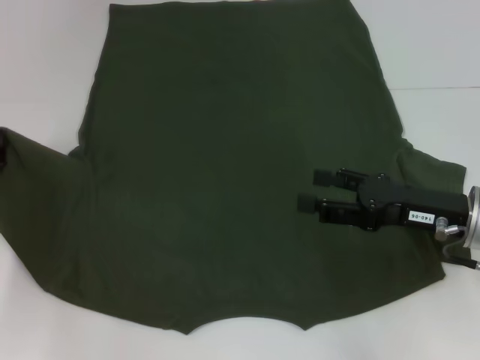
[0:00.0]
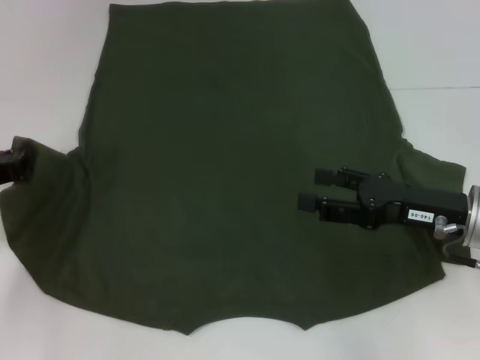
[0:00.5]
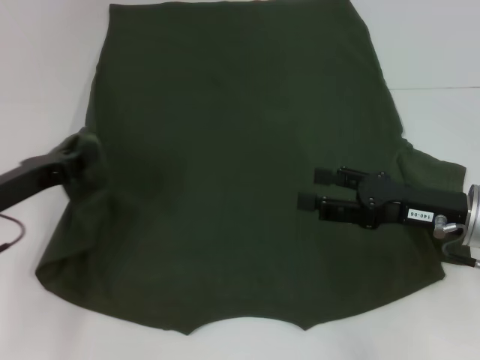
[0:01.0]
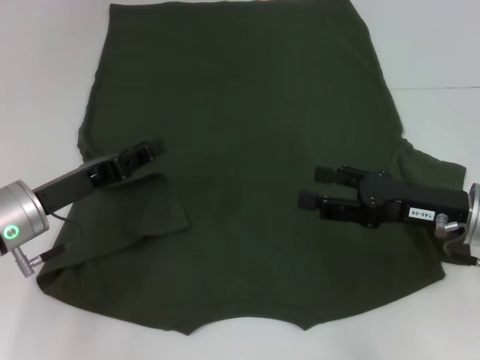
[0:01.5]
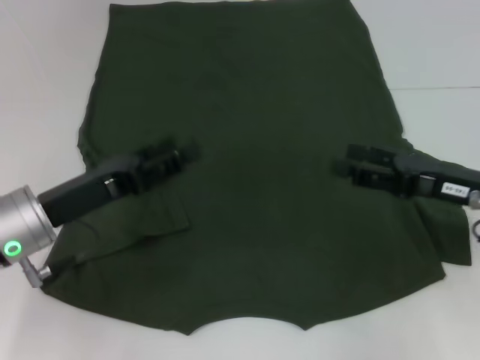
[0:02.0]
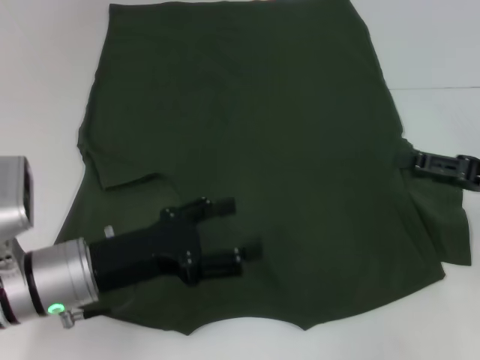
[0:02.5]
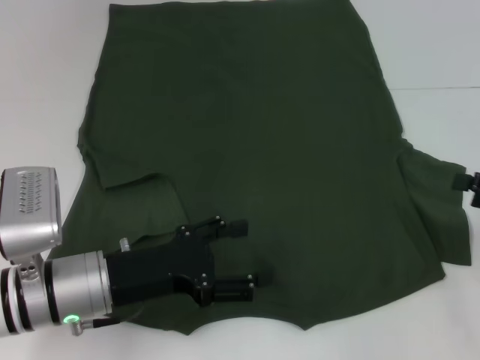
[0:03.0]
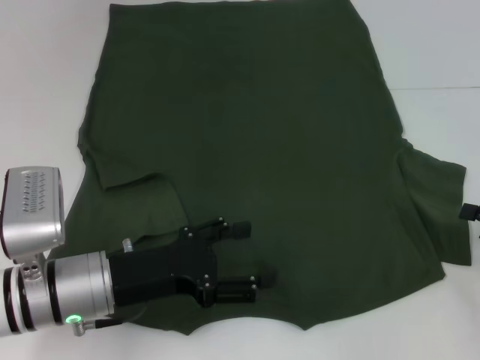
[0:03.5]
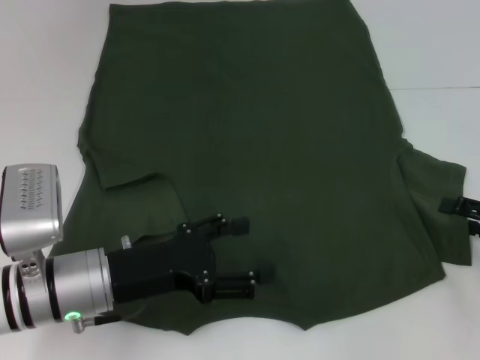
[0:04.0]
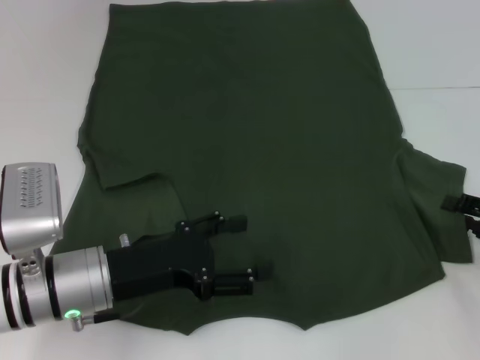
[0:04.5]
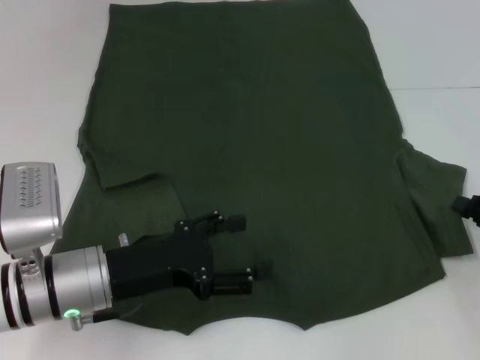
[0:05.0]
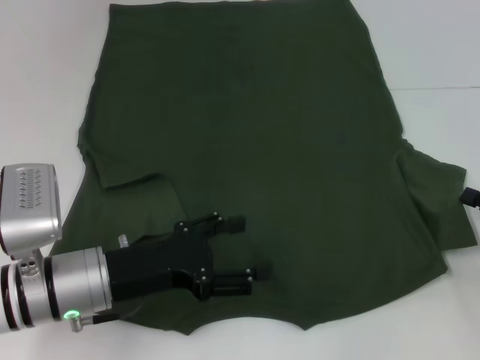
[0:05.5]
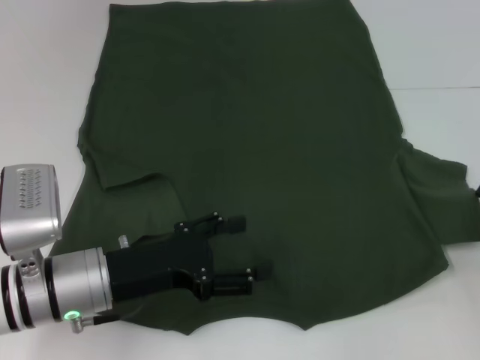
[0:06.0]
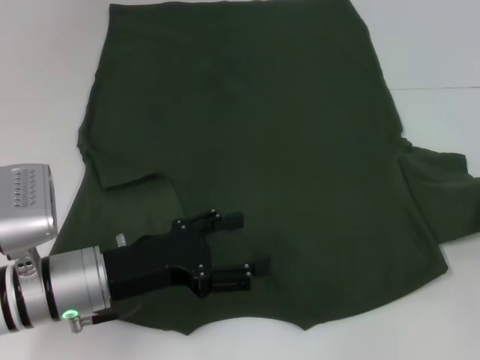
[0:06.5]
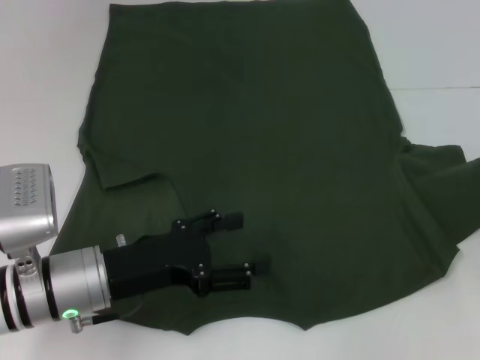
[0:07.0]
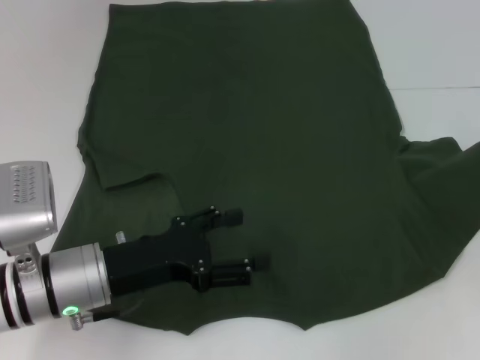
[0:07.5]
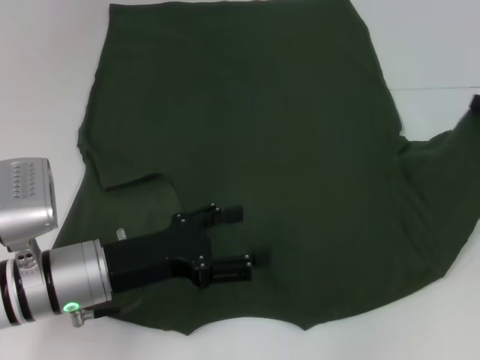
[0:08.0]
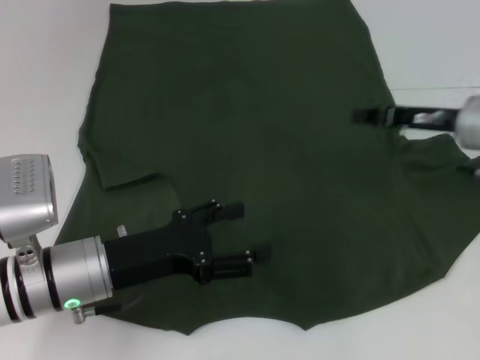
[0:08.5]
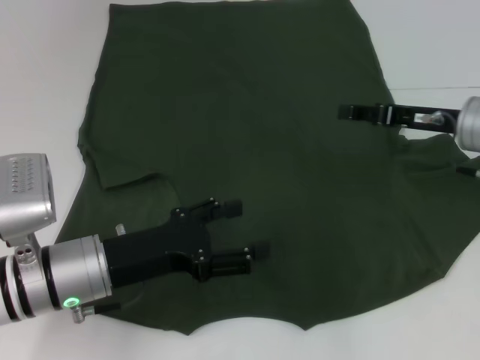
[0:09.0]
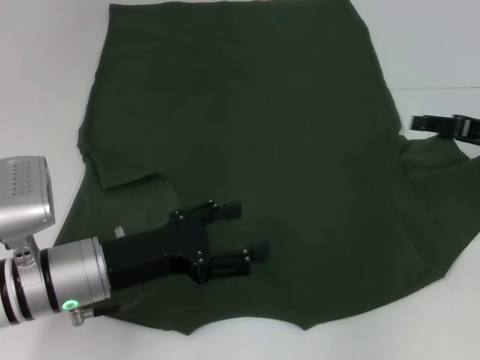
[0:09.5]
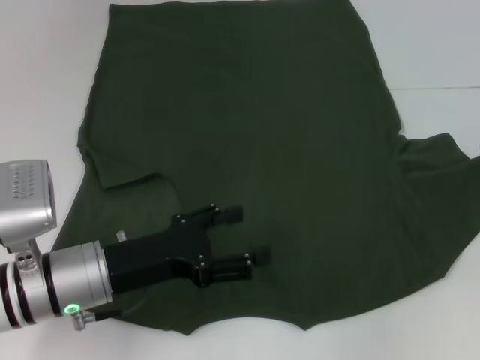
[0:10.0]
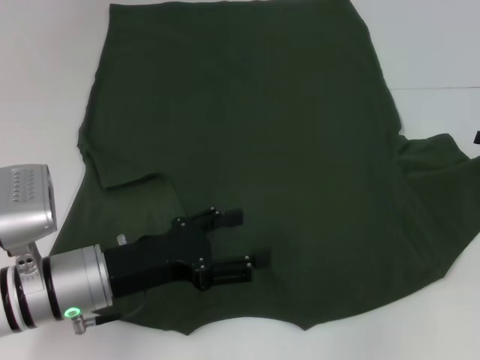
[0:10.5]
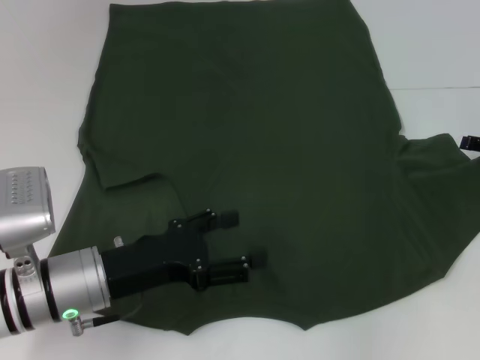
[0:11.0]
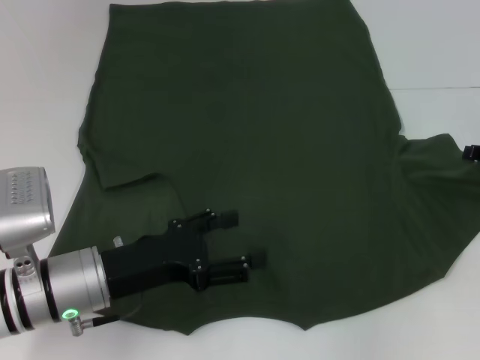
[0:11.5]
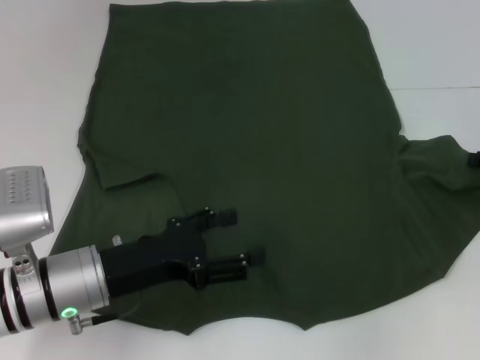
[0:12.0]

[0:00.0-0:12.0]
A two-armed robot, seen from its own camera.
0:00.0 to 0:02.0: The left gripper goes roughly 15 cm to the right and backward, and opens.
0:02.0 to 0:04.0: The left gripper moves about 5 cm, while the right gripper heads to the right, covering roughly 10 cm.
0:04.0 to 0:06.0: The right gripper closes its fingers.
0:06.0 to 0:08.0: The right gripper moves forward and upward, approximately 10 cm.
0:08.0 to 0:10.0: The right gripper moves about 10 cm to the left and comes back, and opens its fingers.

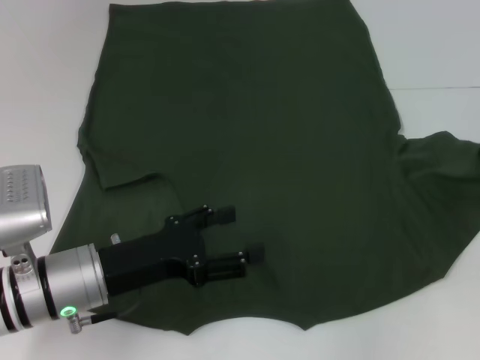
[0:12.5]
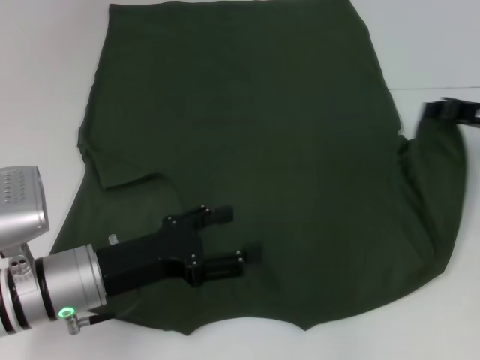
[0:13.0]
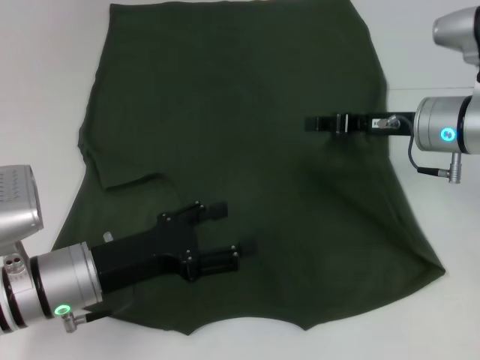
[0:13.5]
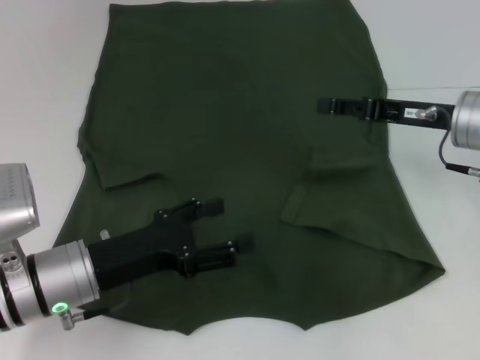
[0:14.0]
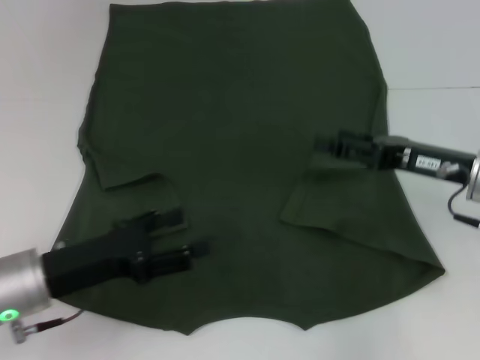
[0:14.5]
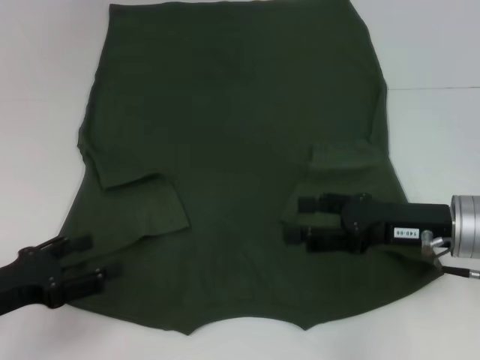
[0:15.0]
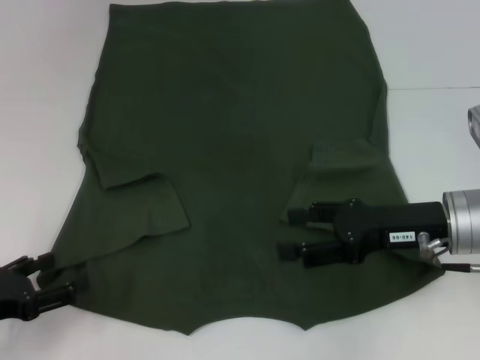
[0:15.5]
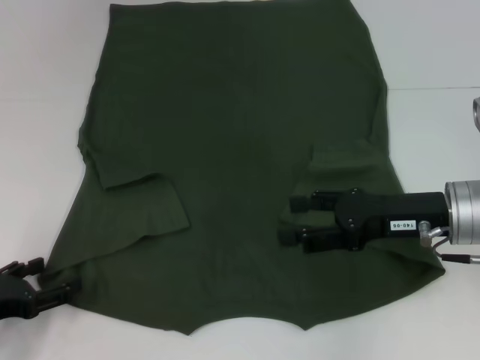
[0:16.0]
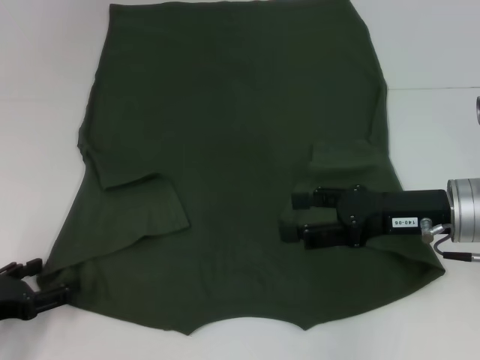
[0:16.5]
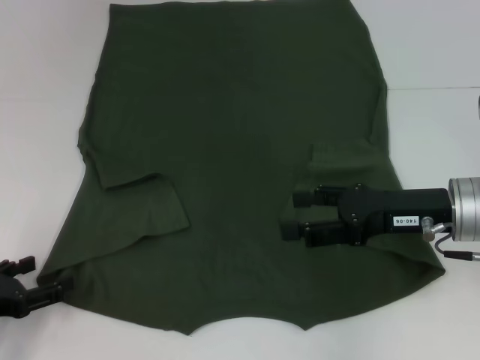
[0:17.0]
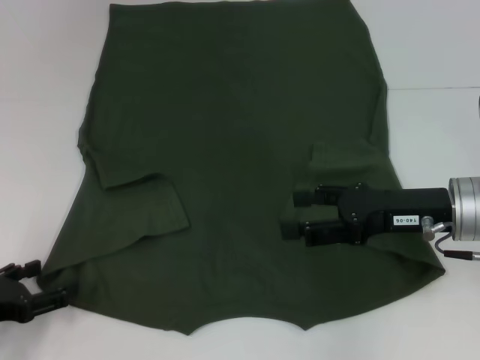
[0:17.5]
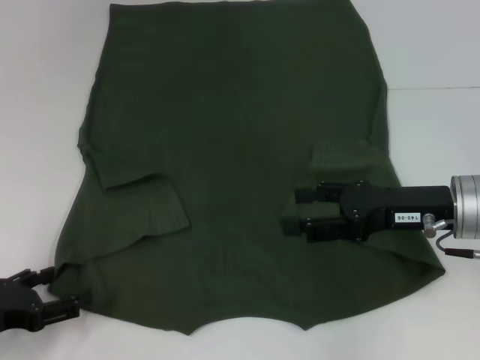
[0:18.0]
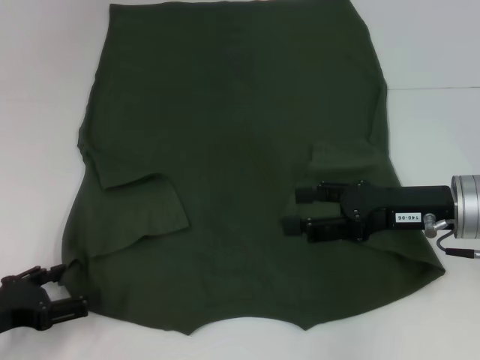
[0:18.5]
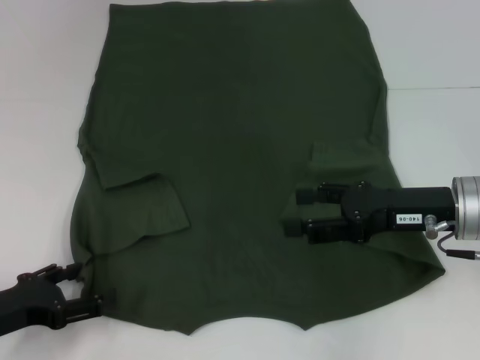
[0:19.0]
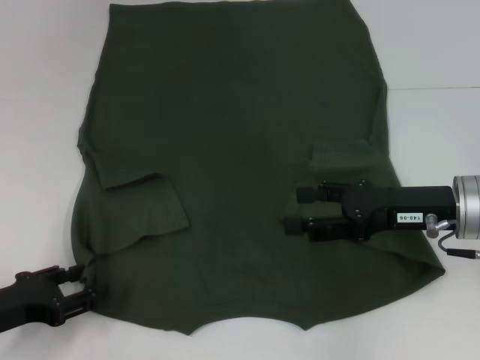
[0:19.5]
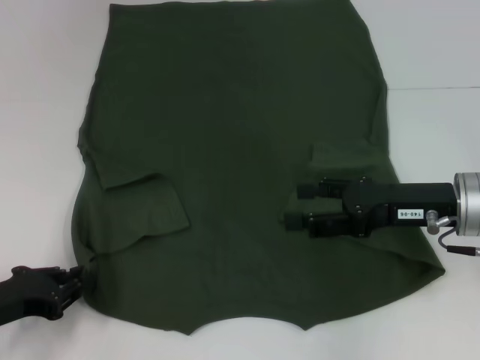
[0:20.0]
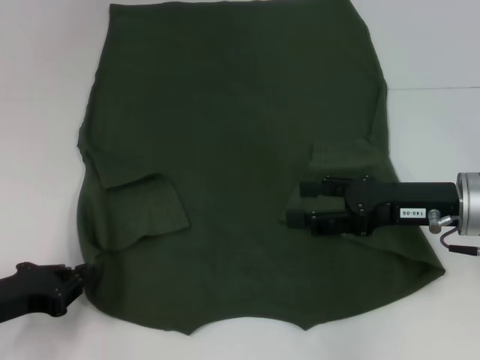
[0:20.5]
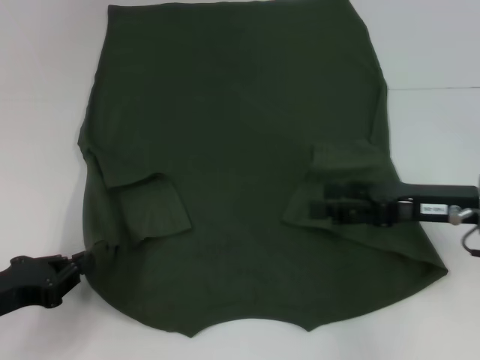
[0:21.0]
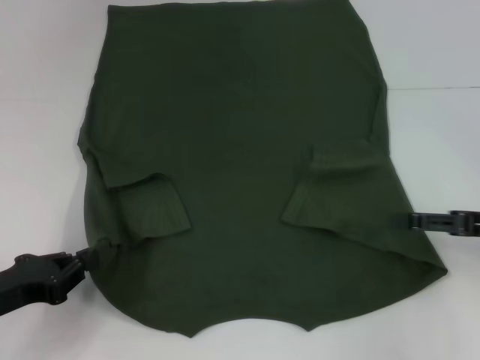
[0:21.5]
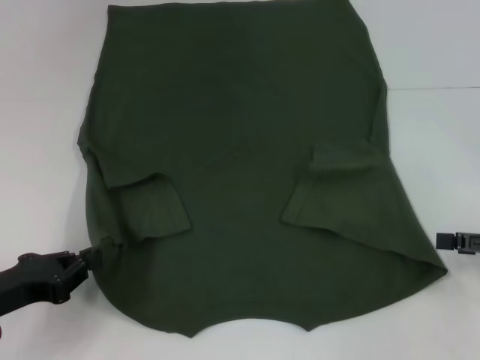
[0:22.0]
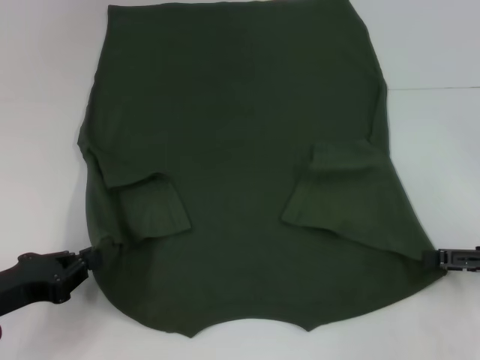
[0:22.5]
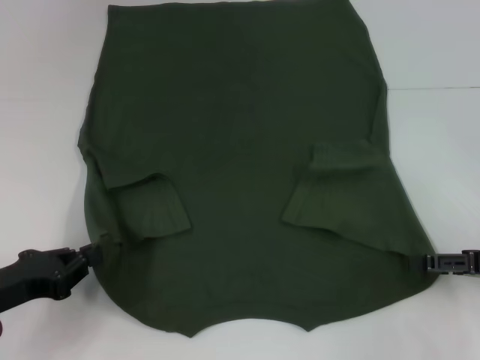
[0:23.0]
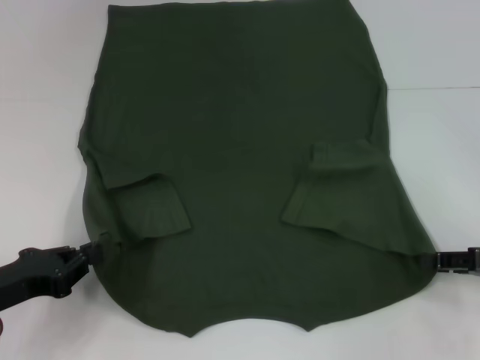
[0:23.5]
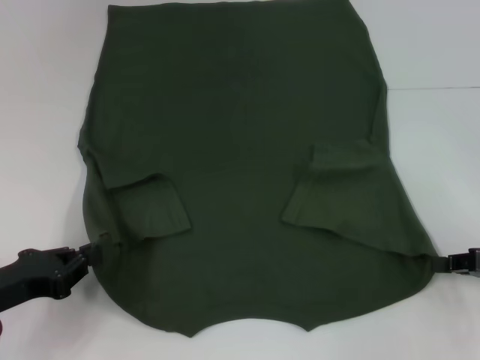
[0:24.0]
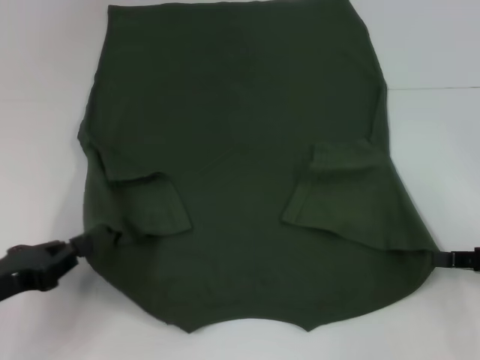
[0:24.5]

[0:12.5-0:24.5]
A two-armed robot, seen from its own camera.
Step, 0:14.0 to 0:20.0: Grab the bottom left corner with your left hand.
Step, 0:20.5 to 0:23.0: Grab the bottom right corner with your right hand.
0:12.5 to 0:14.5: The right gripper heads to the left, covering some 10 cm, and opens.
0:14.5 to 0:16.5: The left gripper travels to the left by about 10 cm.
0:16.5 to 0:18.5: The grippers stay close to where they were, moving slightly.
0:18.5 to 0:20.5: The left gripper closes its fingers.
0:20.5 to 0:22.5: The right gripper goes roughly 15 cm to the right.
0:22.5 to 0:24.5: The right gripper closes.

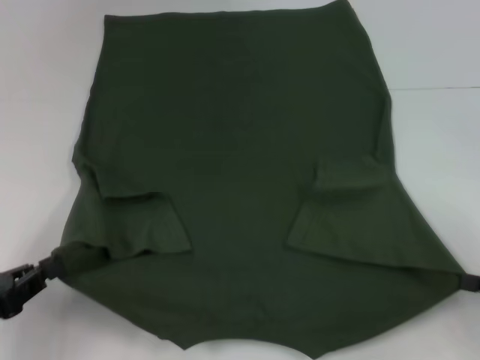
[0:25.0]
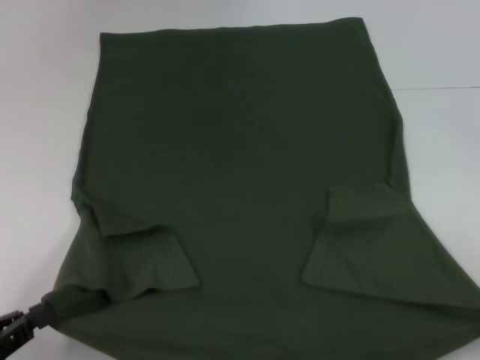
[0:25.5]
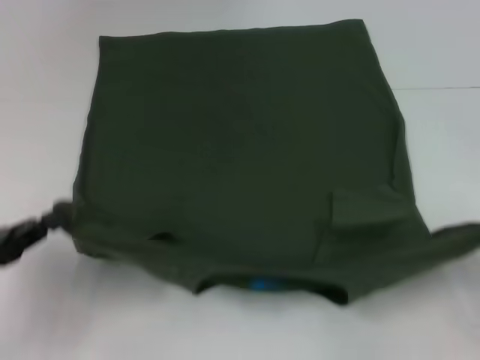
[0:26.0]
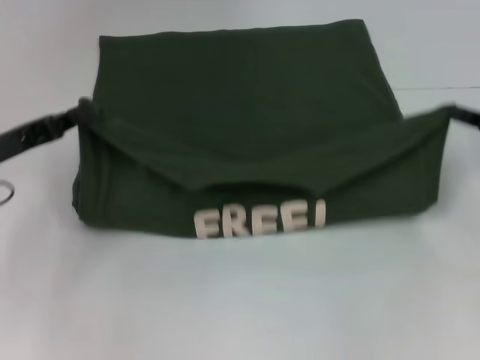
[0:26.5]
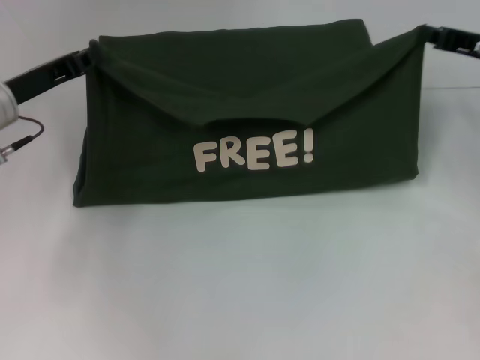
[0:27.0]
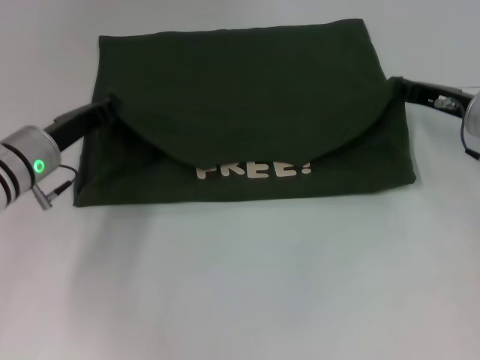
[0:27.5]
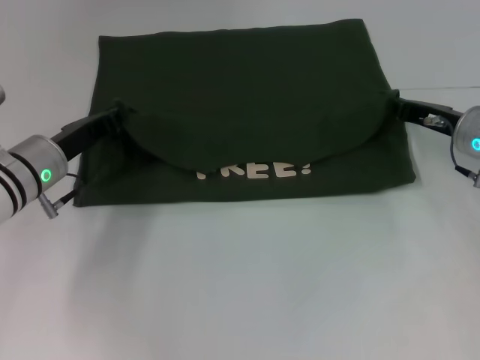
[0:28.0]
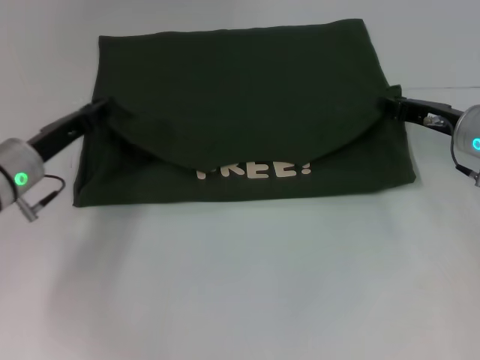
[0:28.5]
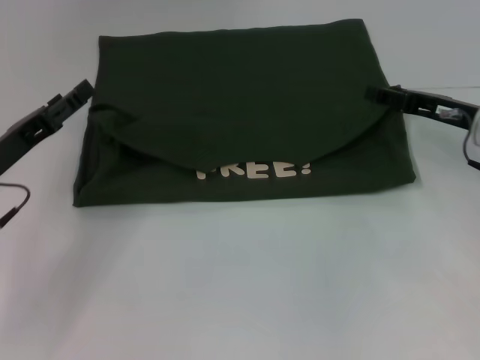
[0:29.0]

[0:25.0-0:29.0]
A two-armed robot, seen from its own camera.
Step, 0:25.0 to 0:28.5: Fold the clothes with your left hand.
Step, 0:25.0 to 0:28.5: Fold the clothes with your right hand.
0:25.0 to 0:27.0: The right gripper heads forward and upward, covering approximately 25 cm, while the left gripper travels forward by some 20 cm.
0:27.0 to 0:29.0: The right gripper goes roughly 5 cm downward, and opens its fingers. The left gripper is displaced backward by roughly 10 cm, and opens.
